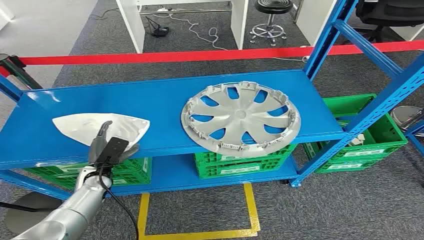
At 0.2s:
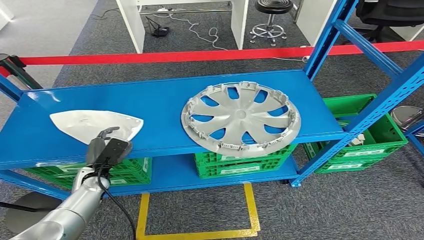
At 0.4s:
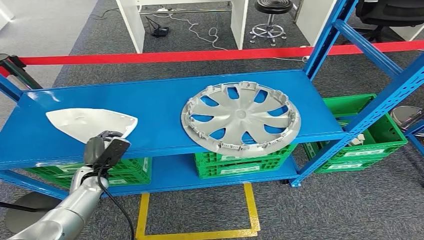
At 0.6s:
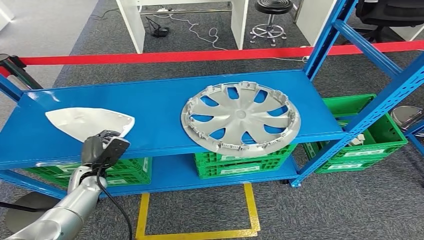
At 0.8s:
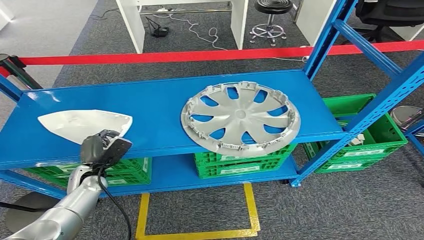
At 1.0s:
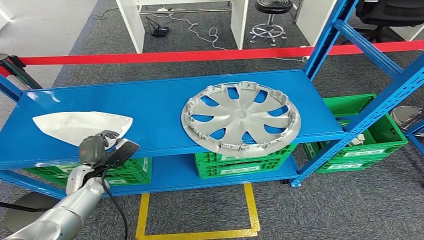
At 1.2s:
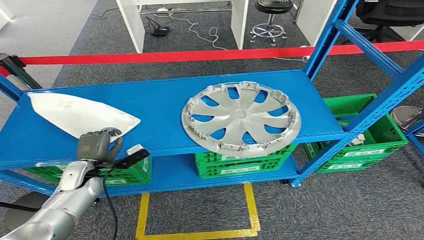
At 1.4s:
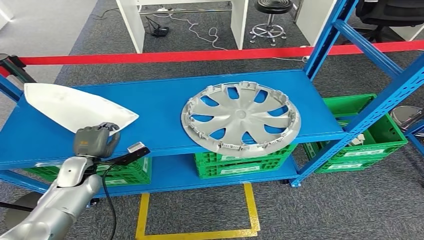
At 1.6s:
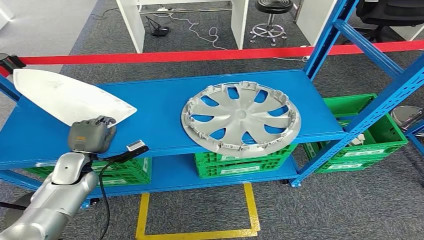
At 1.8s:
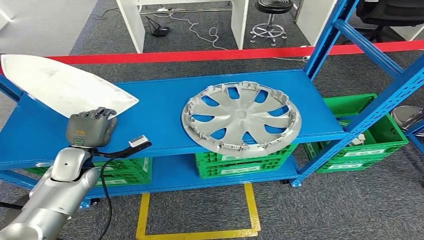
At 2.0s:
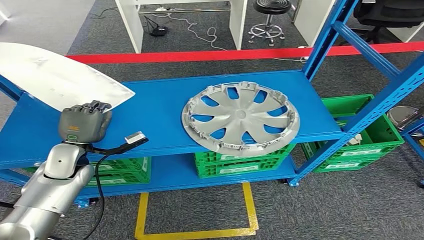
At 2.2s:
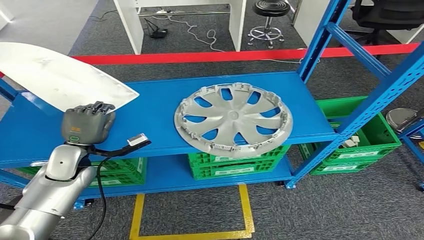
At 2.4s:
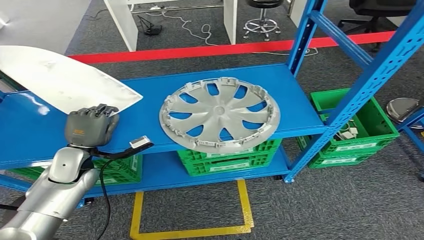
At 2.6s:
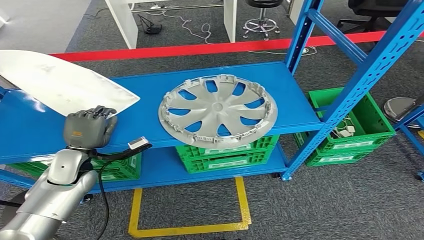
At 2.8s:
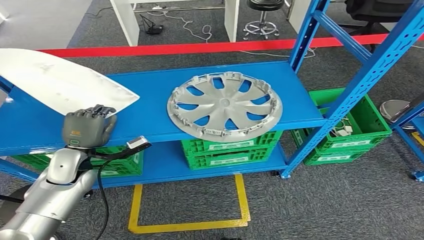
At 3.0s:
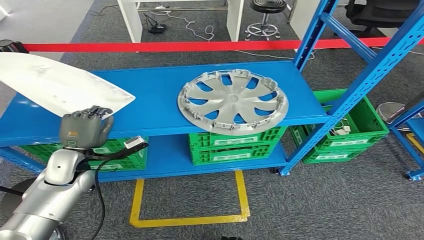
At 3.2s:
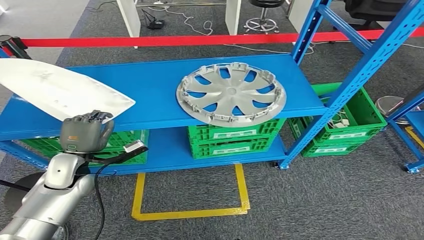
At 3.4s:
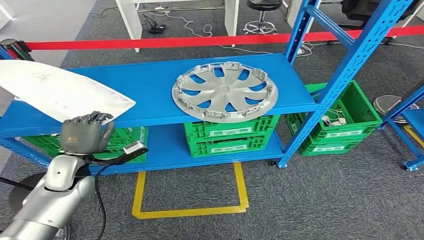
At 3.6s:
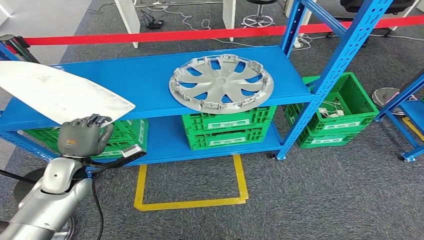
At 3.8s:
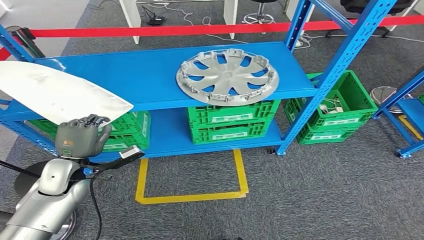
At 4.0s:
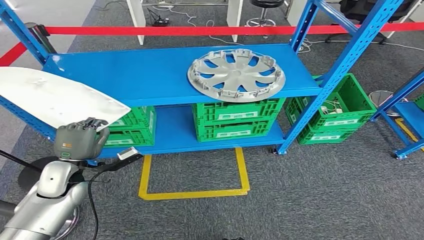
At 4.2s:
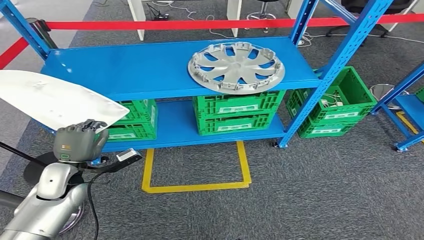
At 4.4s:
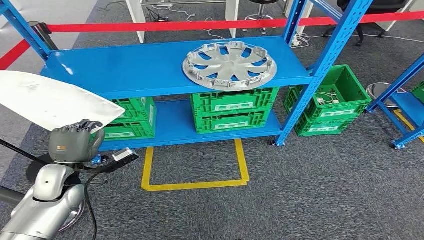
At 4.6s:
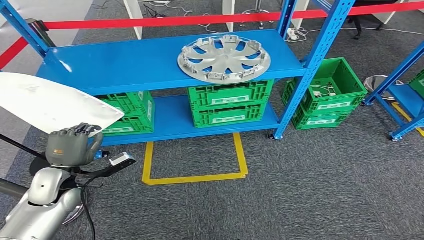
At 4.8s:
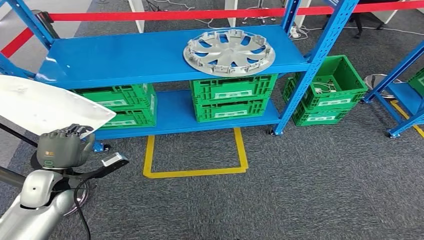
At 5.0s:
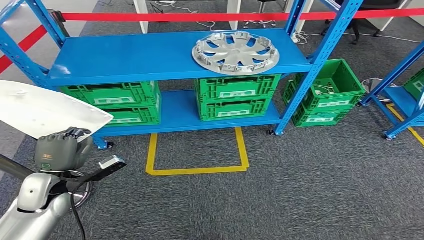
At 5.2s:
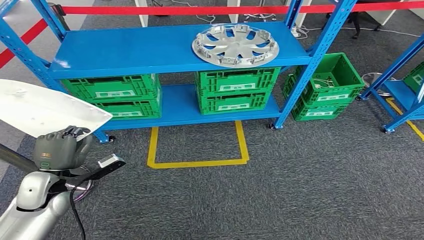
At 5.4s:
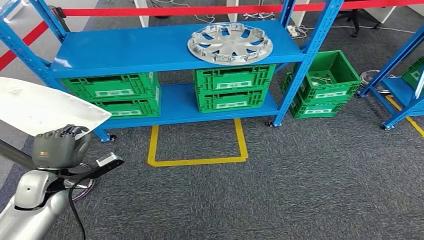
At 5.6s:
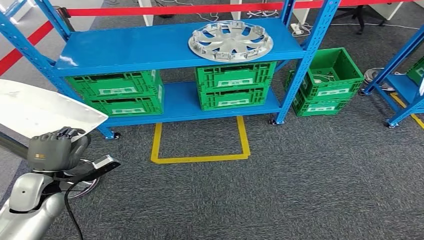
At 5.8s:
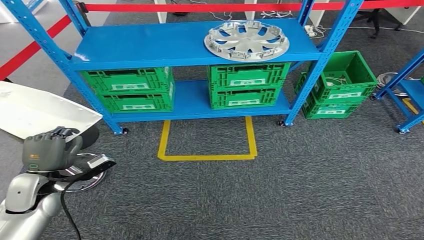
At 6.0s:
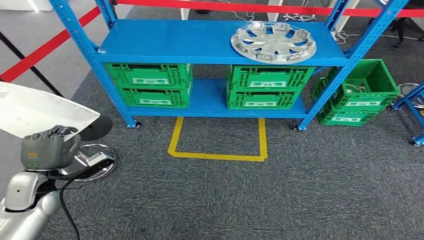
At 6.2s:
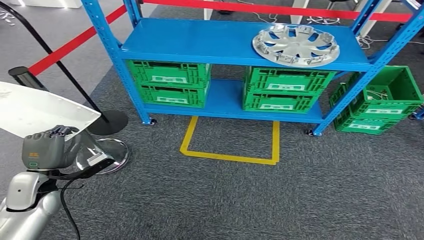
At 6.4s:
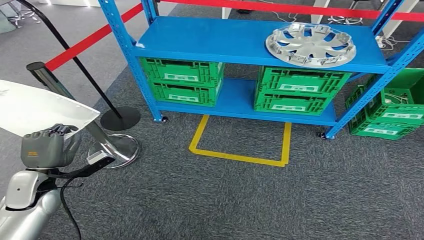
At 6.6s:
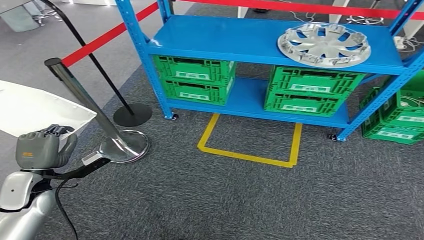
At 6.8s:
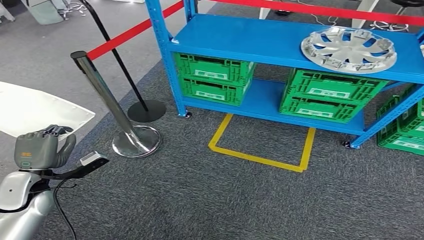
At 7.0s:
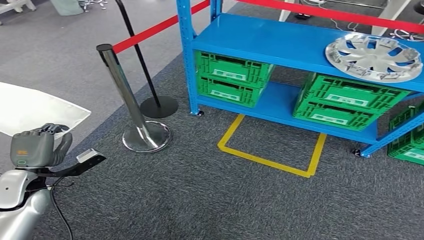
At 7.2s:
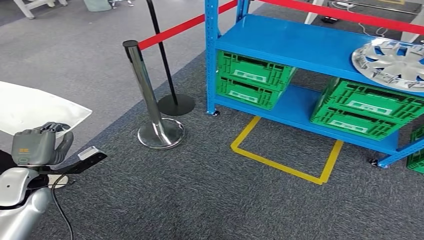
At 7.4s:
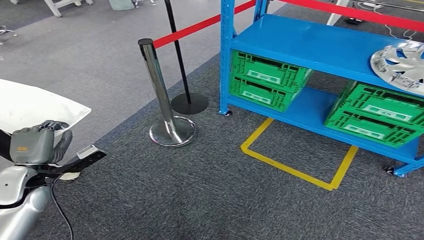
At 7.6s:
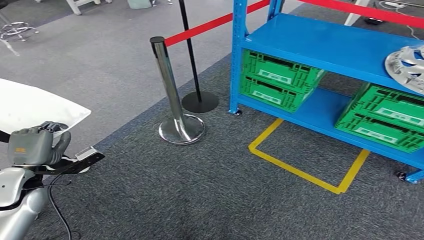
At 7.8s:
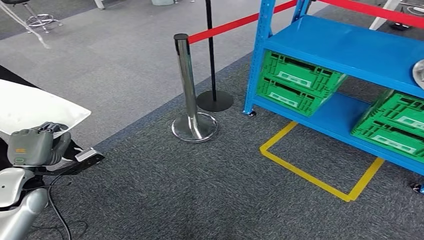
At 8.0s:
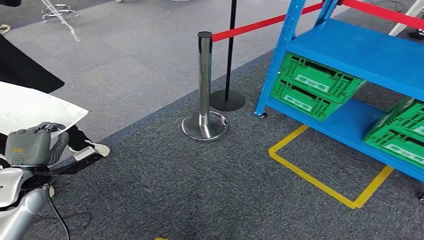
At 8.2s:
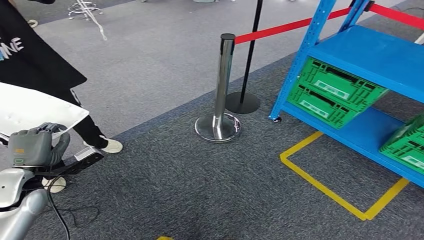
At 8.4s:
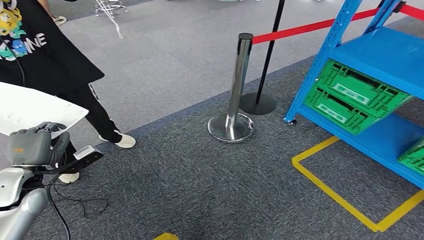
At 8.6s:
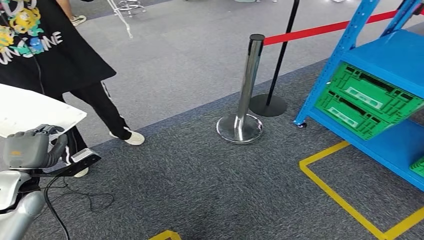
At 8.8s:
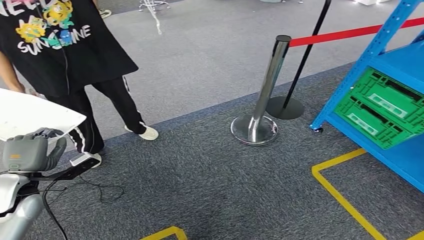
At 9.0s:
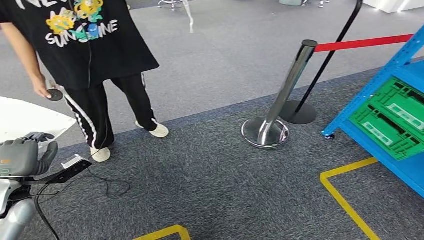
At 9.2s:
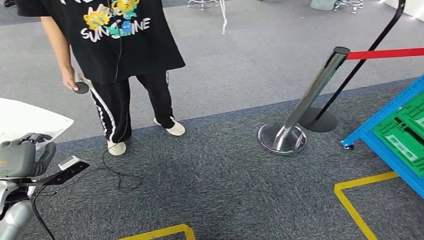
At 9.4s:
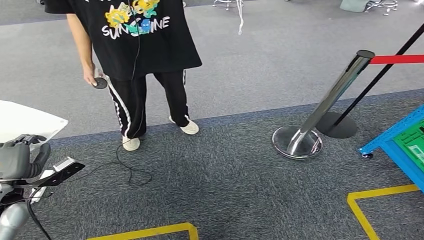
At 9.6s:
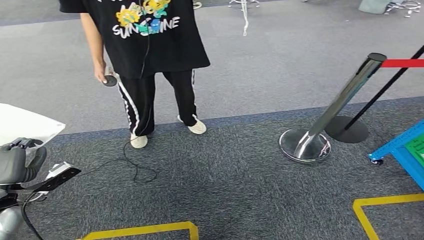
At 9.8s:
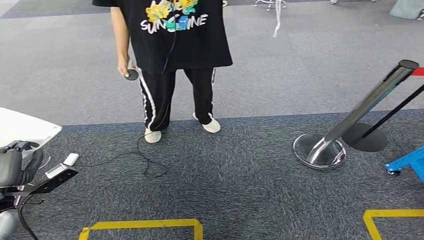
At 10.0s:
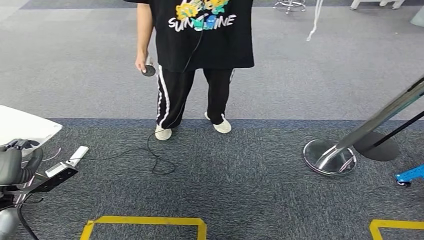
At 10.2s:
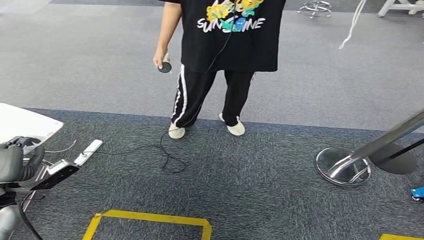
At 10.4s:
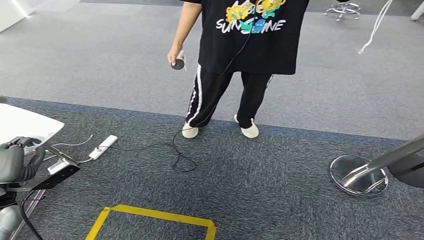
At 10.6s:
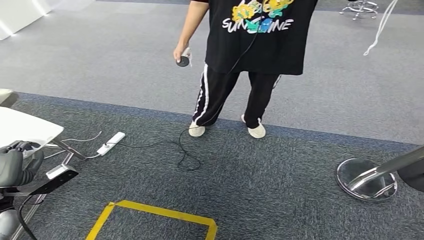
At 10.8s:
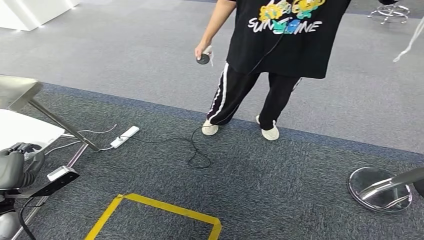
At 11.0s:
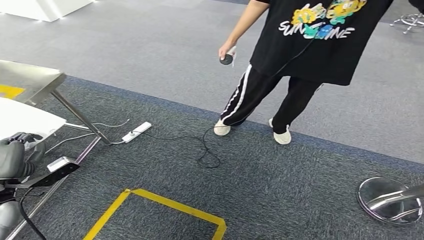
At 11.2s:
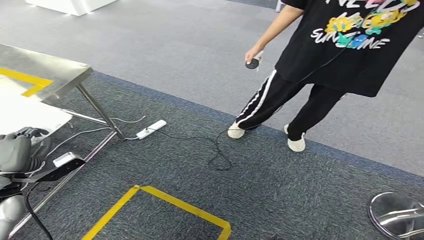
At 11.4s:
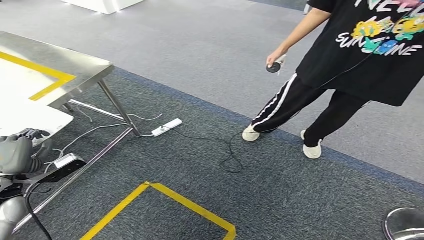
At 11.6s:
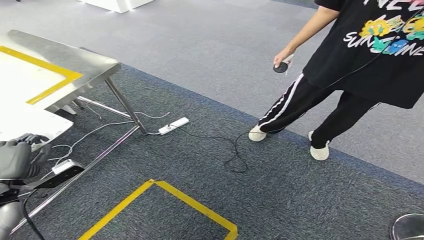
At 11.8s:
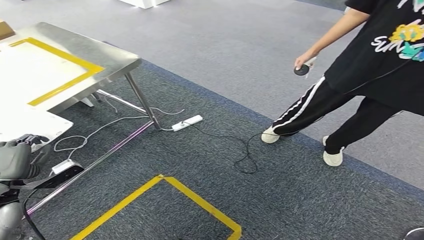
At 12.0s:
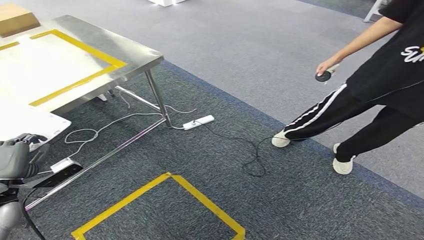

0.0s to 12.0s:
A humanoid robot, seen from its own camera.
Step, 0.0s to 3.4s: Pick up the small component from the shelf.

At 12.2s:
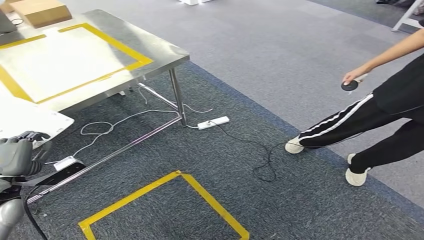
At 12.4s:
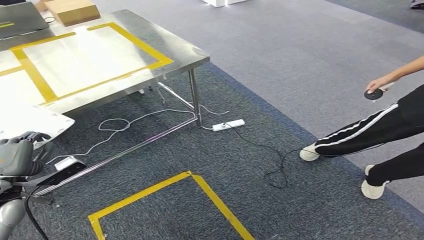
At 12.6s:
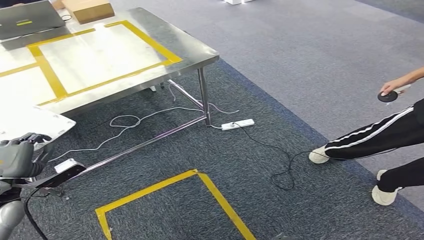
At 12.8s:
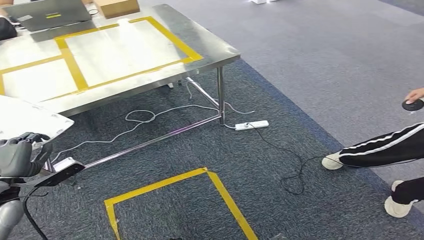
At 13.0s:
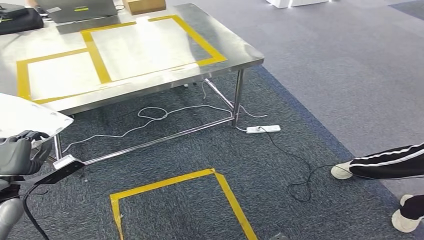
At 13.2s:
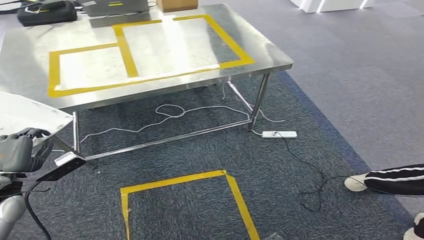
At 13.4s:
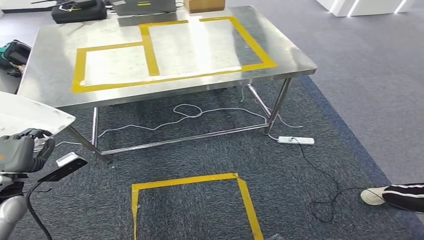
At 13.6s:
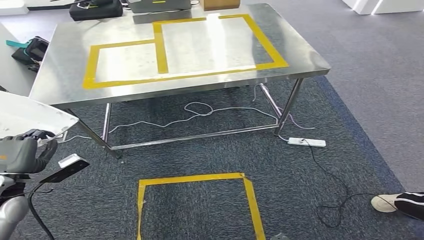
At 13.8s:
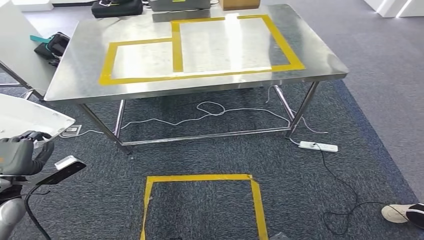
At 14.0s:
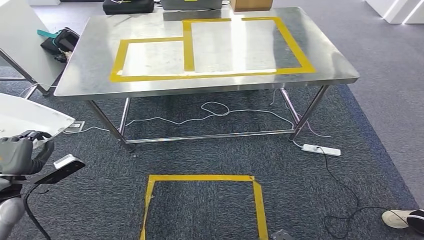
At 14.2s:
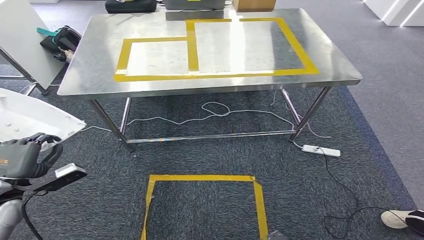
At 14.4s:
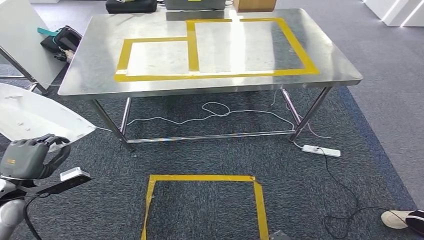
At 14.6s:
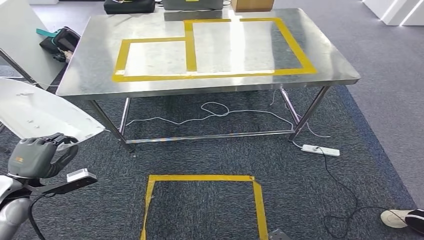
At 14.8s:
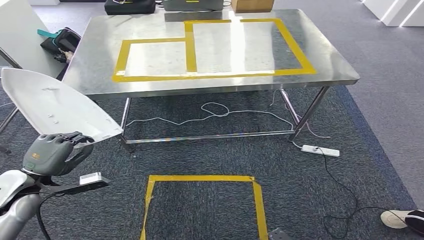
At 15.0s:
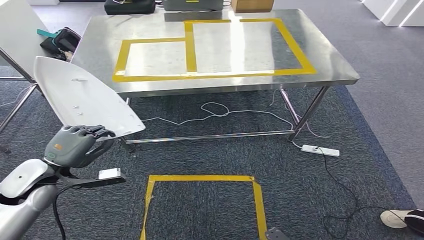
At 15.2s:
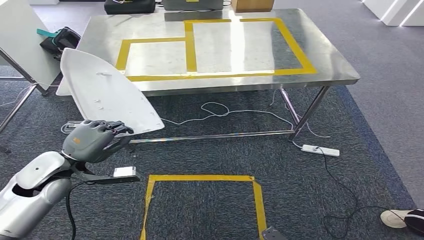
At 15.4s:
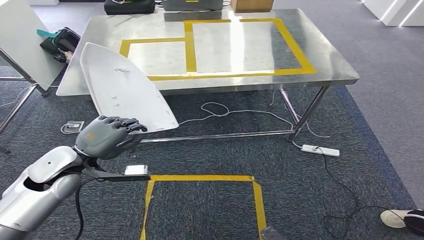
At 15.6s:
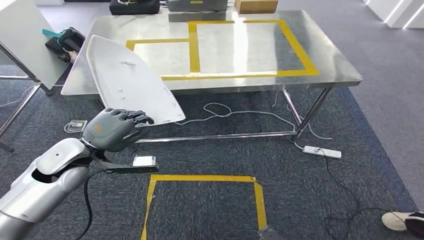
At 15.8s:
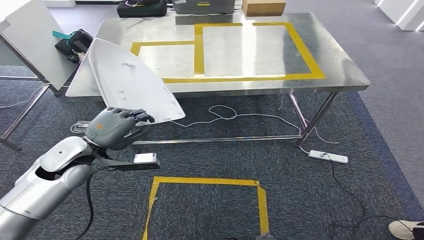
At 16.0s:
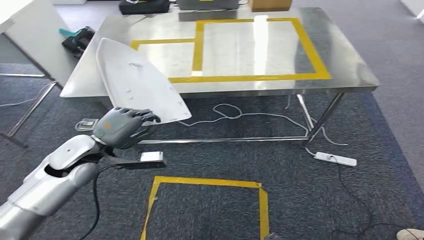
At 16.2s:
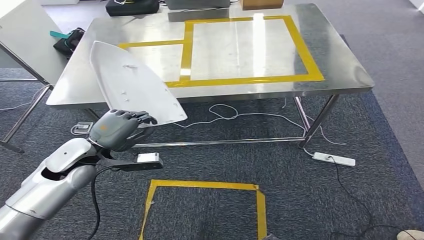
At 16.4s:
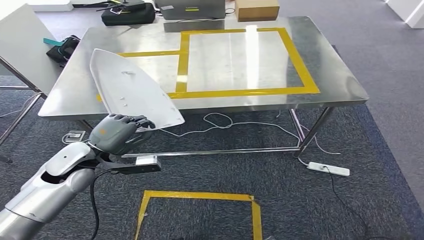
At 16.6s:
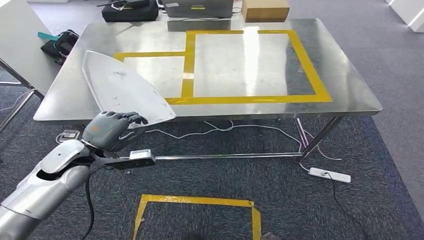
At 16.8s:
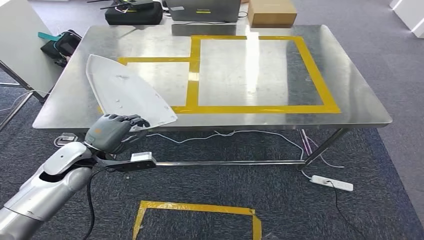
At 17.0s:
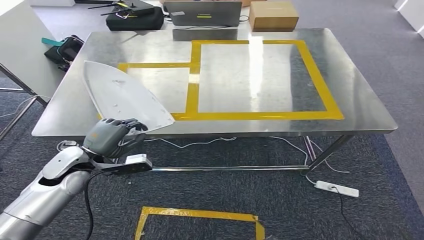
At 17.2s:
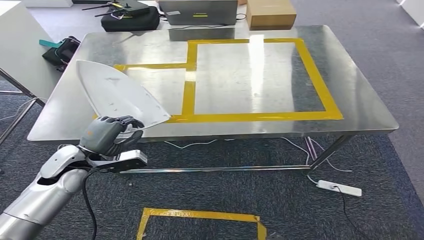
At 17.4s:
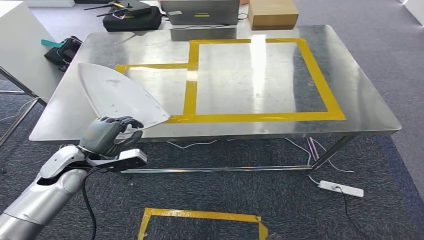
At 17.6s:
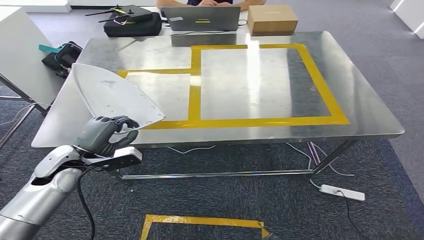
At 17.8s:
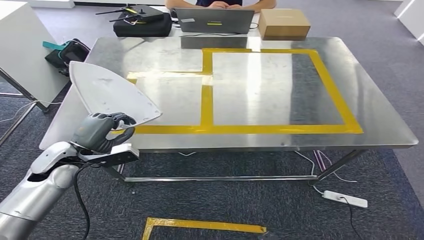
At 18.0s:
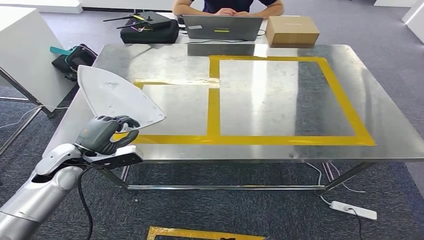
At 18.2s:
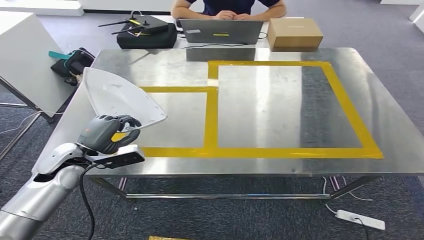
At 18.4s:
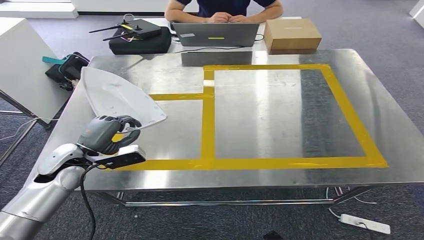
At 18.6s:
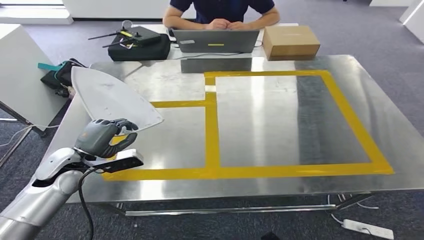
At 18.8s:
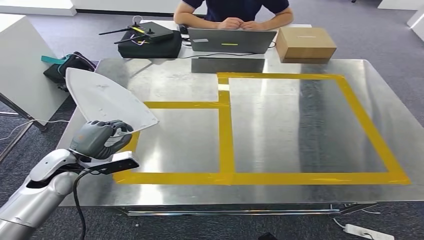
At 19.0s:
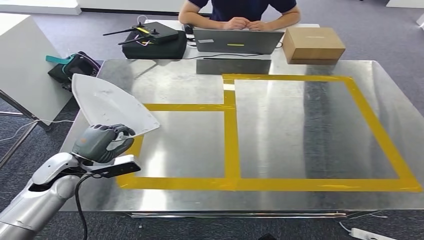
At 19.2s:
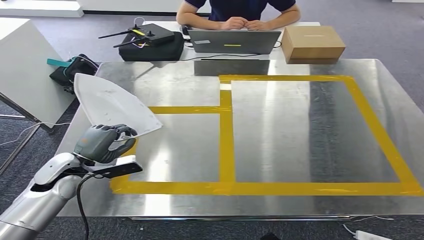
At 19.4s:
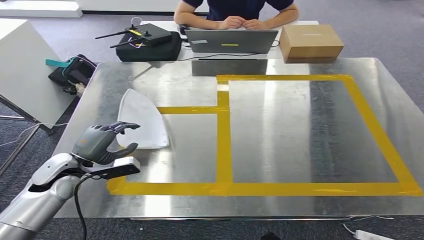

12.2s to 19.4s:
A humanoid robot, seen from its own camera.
Step, 12.2s to 14.8s: Move the small component to the workbench.
